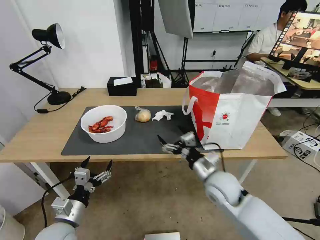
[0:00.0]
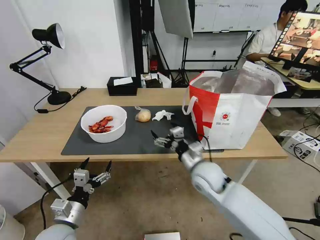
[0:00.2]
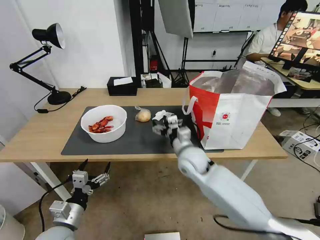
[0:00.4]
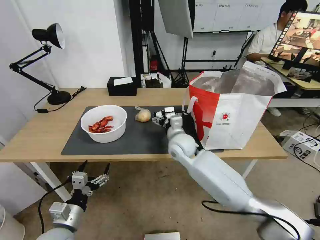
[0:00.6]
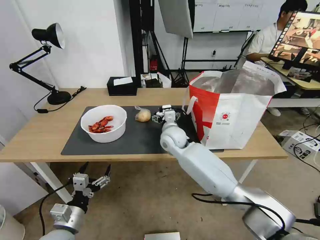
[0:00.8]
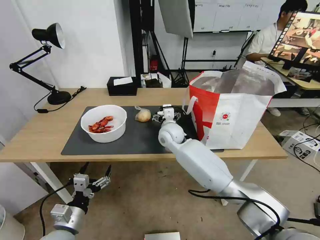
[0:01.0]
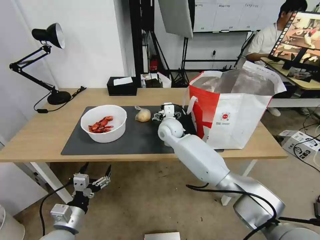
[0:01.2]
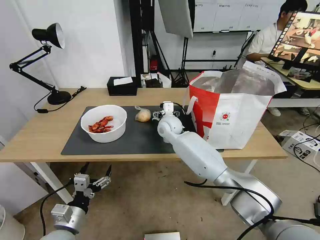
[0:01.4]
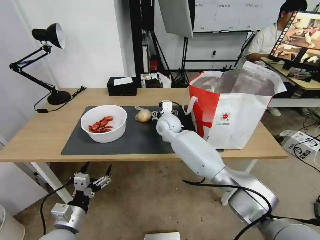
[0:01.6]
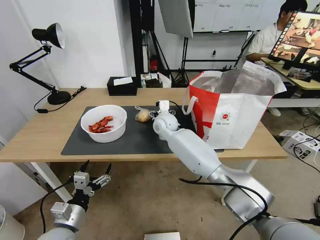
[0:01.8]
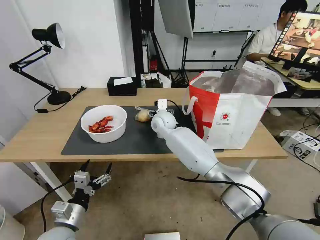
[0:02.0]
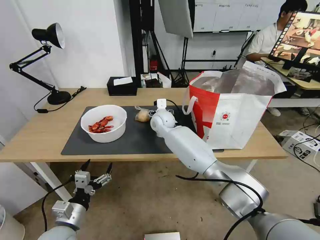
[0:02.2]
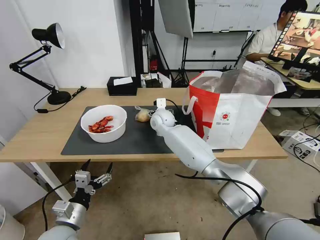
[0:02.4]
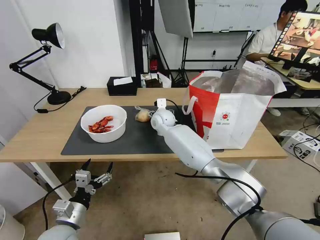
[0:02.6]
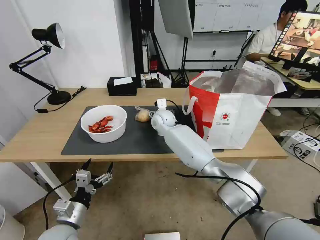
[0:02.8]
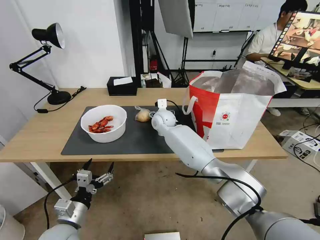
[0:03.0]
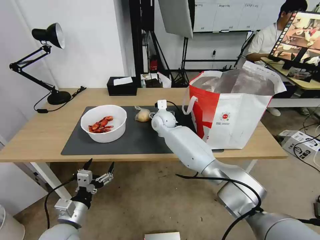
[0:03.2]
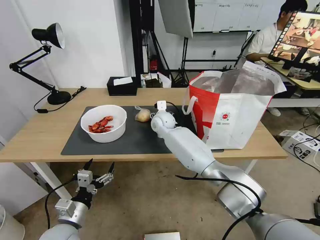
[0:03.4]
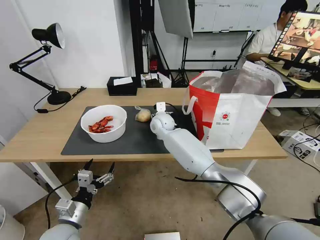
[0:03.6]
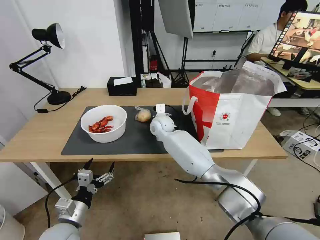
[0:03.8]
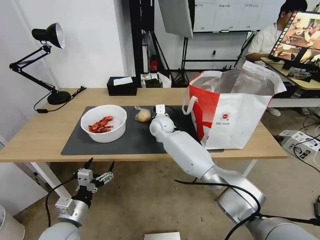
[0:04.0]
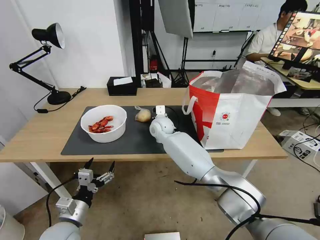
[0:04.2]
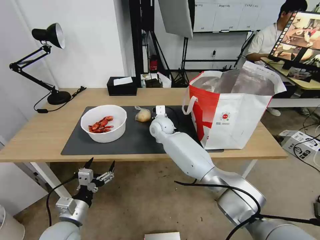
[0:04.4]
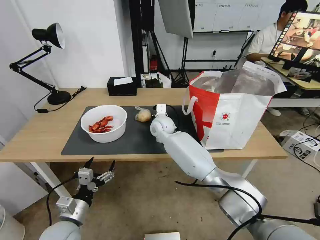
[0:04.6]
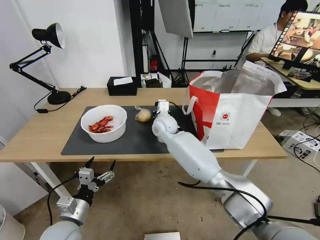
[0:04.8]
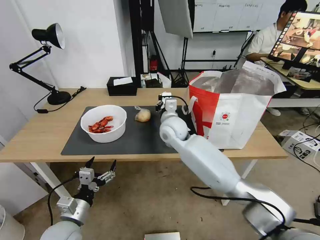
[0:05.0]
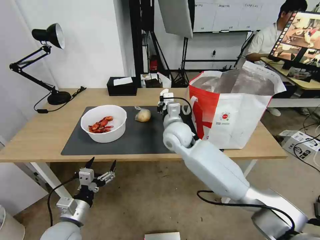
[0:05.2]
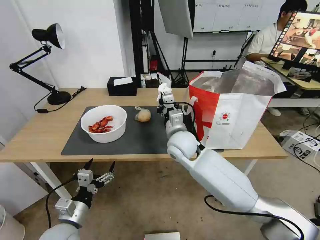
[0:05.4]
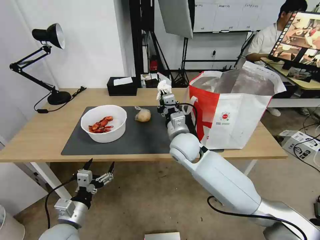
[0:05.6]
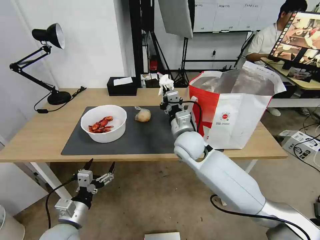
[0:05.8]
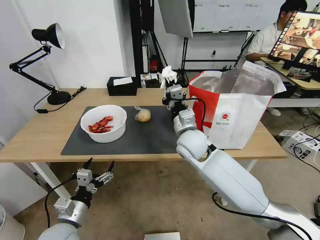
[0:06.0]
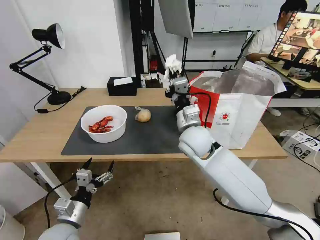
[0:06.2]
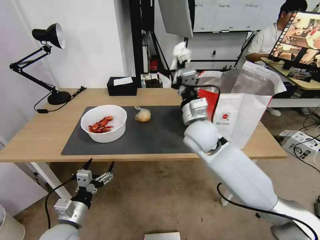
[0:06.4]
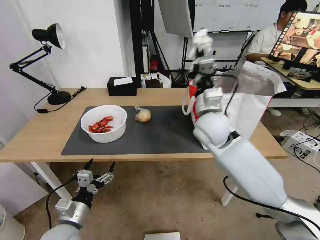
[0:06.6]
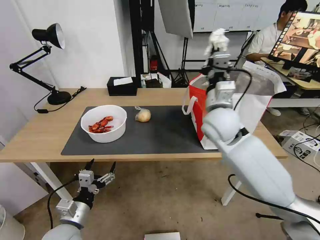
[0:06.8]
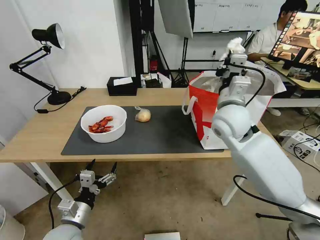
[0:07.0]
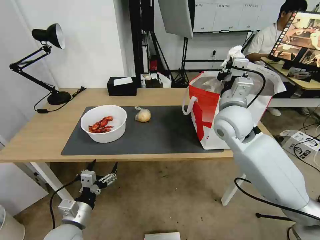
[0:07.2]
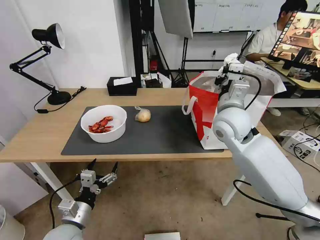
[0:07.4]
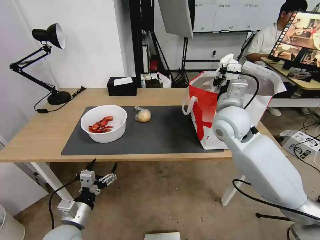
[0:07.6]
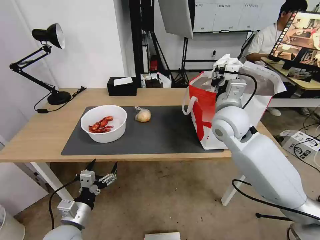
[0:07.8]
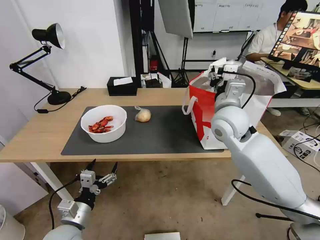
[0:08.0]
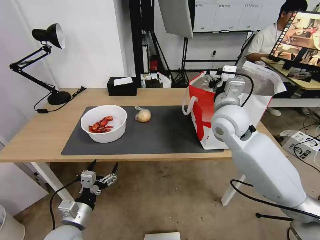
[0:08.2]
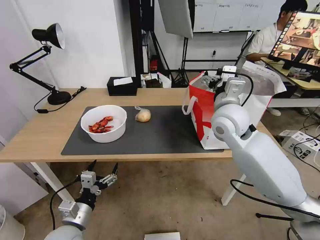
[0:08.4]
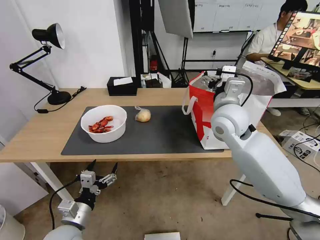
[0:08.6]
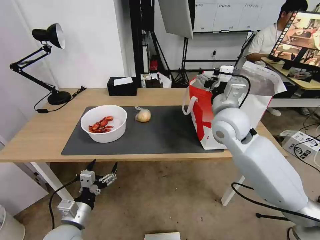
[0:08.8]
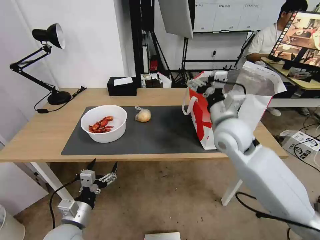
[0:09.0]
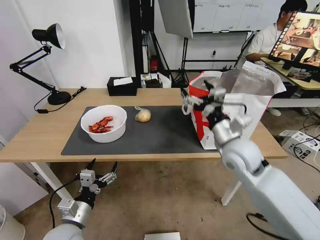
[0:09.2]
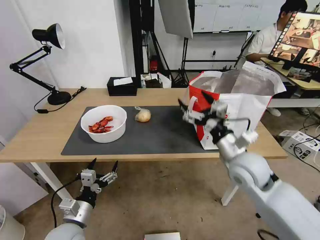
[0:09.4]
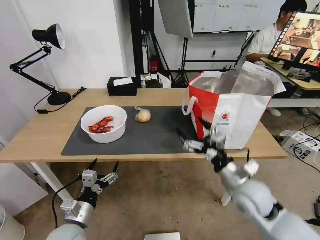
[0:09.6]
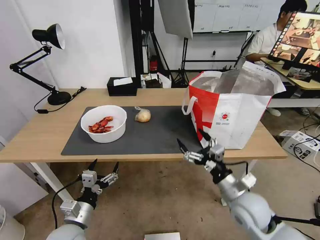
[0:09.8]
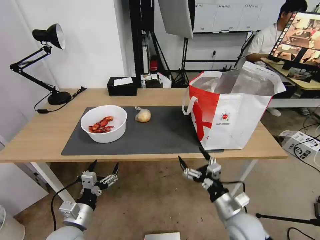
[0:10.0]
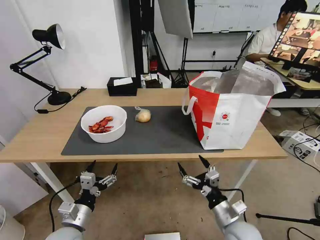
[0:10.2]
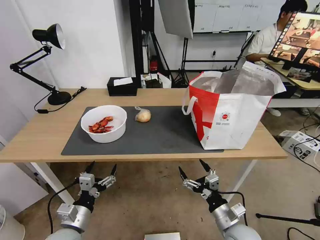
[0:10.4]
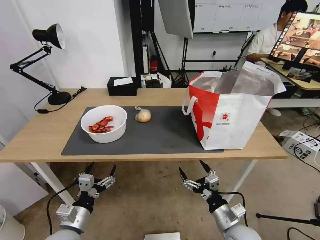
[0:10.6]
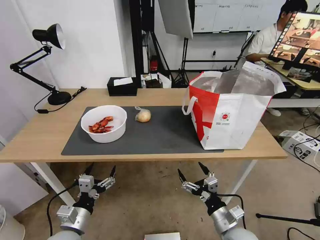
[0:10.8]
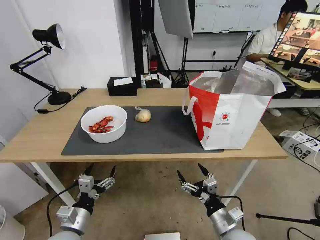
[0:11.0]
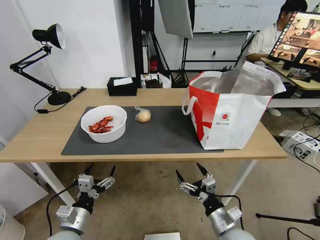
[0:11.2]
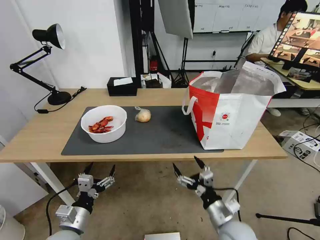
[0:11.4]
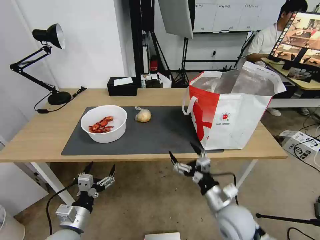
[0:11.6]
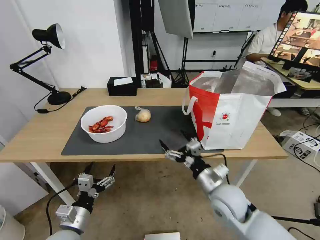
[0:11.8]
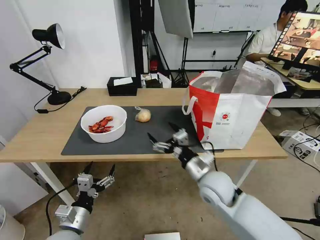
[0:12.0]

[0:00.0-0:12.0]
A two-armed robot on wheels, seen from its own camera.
Task of the whole recording: Pick up the trash from the table and place it into the takeout bag.
0:00.0 to 0:01.6: The right gripper goes about 30 cm forward and to the left.
0:01.6 to 0:03.0: The grippers stay close to where they were, moving slightly.
0:03.0 to 0:04.4: The right gripper closes.
0:04.4 to 0:06.0: The right gripper shifts about 20 cm backward, to the right and upward.
0:06.0 to 0:07.6: The right gripper moves to the right and upward, some 15 cm.
0:07.6 to 0:09.0: The right gripper opens.
0:09.0 to 0:10.4: The right gripper goes some 30 cm downward and backward.
0:10.4 to 0:12.0: The right gripper moves forward, upward and to the left, some 20 cm.

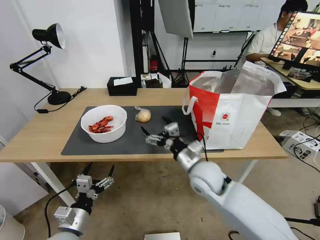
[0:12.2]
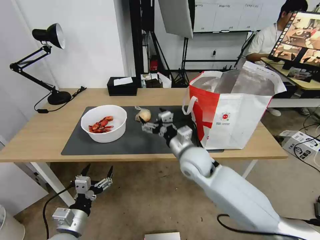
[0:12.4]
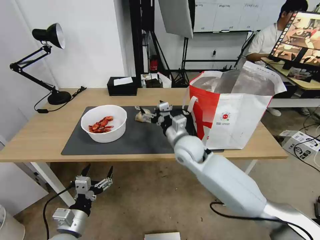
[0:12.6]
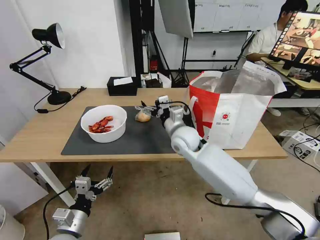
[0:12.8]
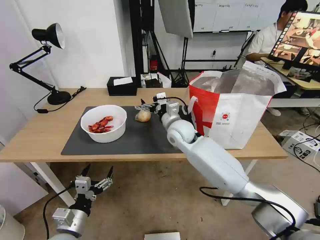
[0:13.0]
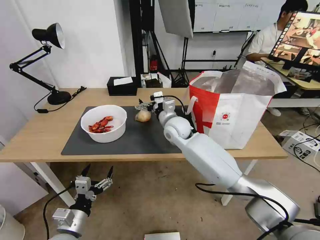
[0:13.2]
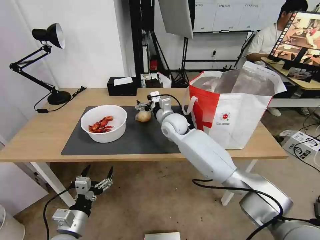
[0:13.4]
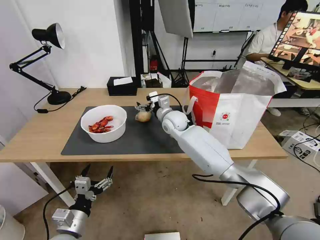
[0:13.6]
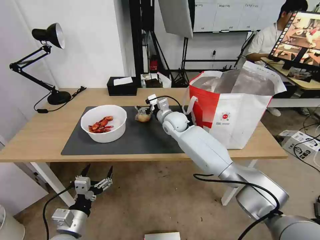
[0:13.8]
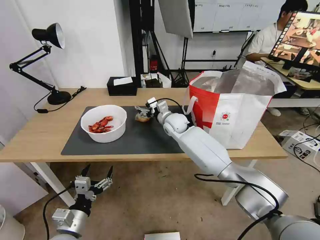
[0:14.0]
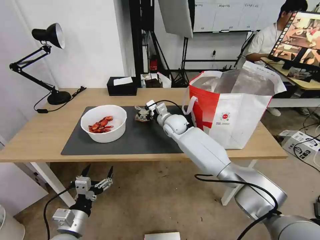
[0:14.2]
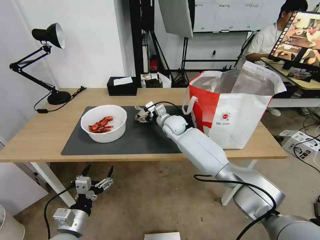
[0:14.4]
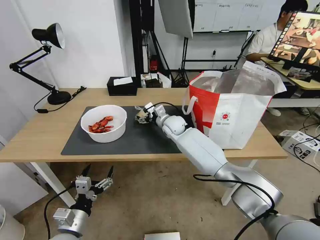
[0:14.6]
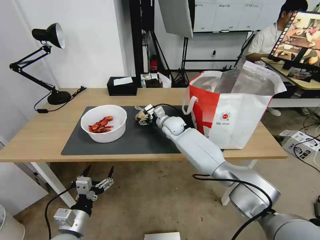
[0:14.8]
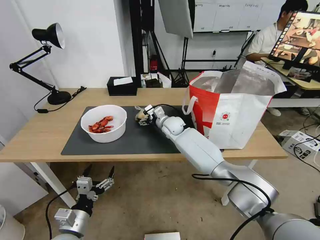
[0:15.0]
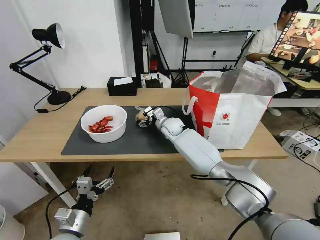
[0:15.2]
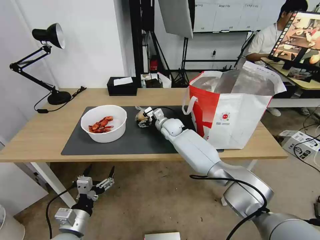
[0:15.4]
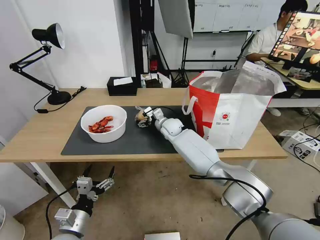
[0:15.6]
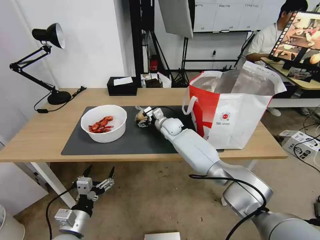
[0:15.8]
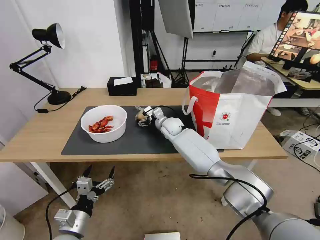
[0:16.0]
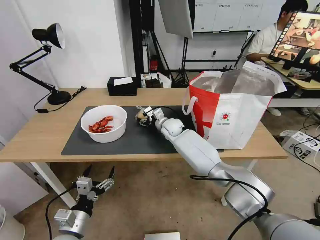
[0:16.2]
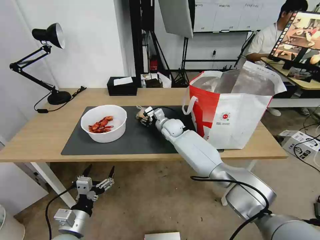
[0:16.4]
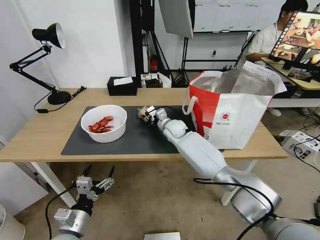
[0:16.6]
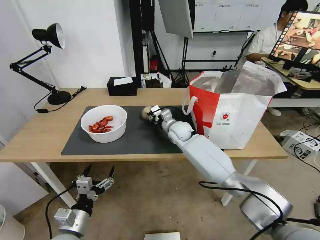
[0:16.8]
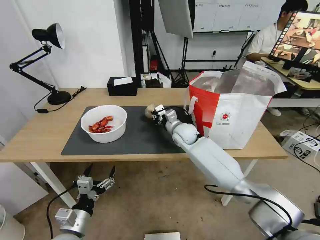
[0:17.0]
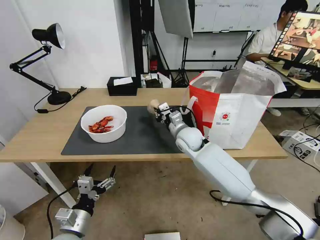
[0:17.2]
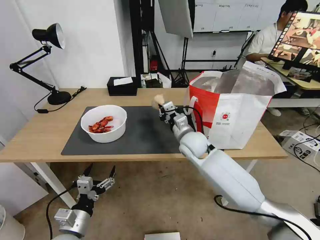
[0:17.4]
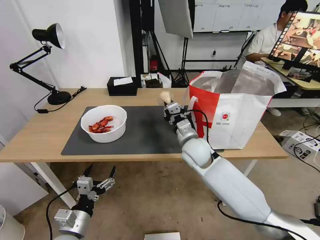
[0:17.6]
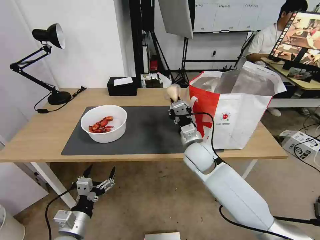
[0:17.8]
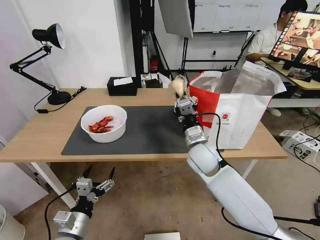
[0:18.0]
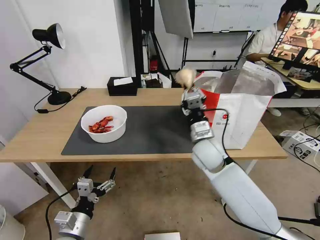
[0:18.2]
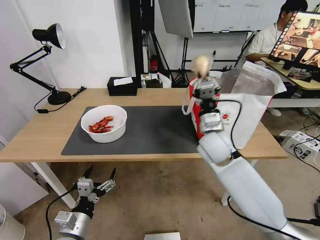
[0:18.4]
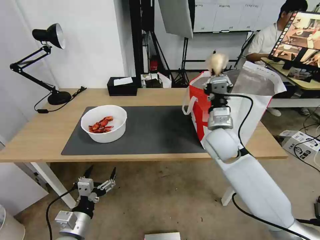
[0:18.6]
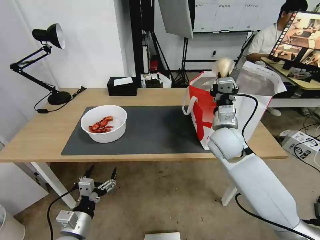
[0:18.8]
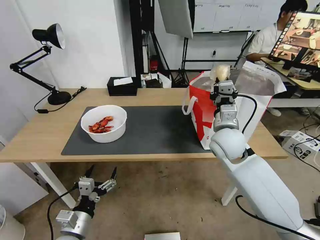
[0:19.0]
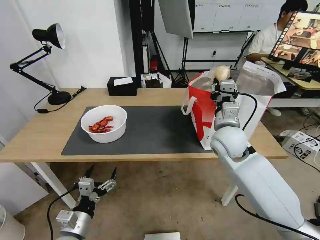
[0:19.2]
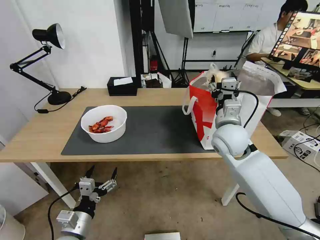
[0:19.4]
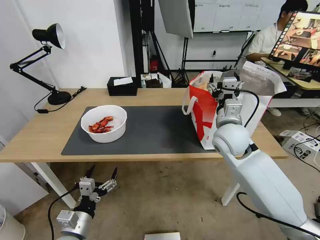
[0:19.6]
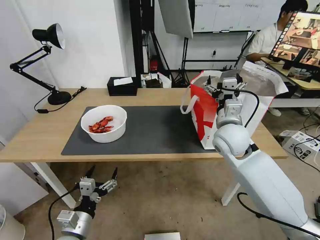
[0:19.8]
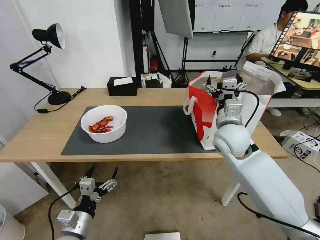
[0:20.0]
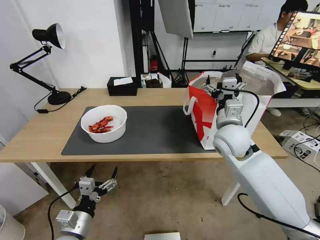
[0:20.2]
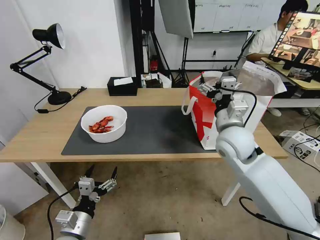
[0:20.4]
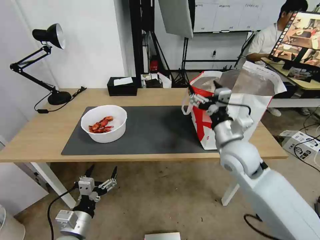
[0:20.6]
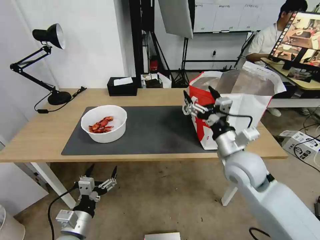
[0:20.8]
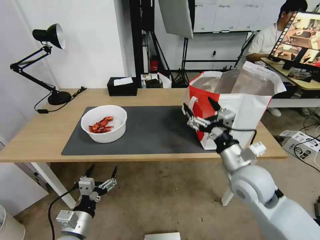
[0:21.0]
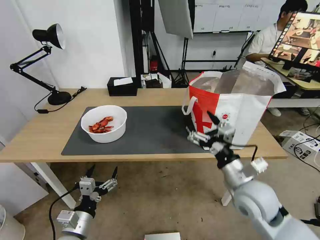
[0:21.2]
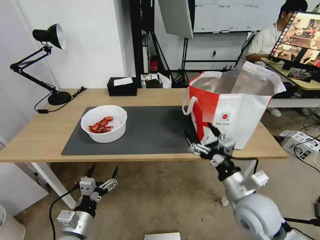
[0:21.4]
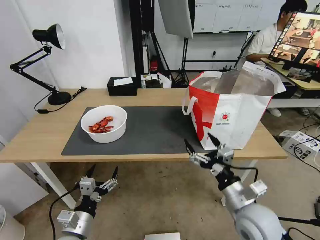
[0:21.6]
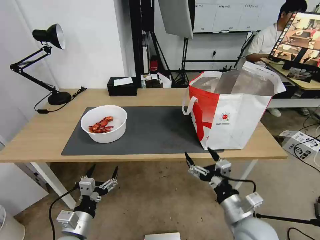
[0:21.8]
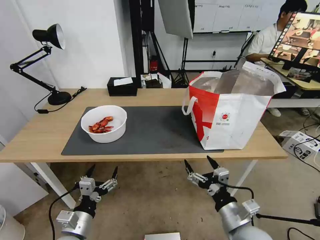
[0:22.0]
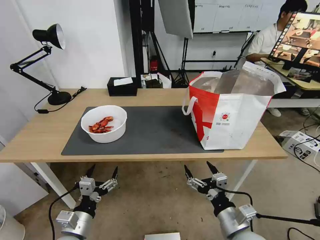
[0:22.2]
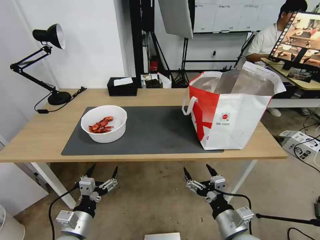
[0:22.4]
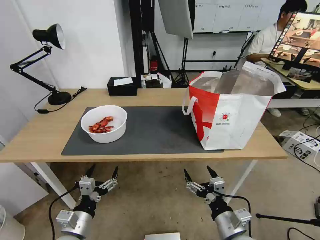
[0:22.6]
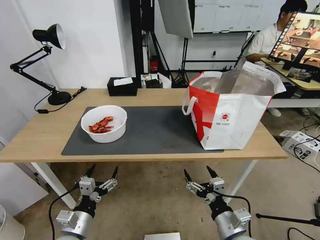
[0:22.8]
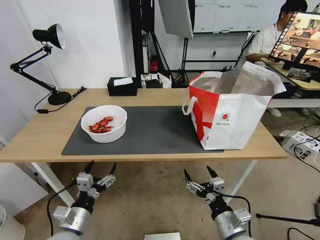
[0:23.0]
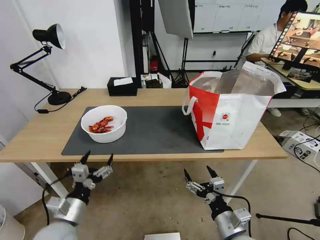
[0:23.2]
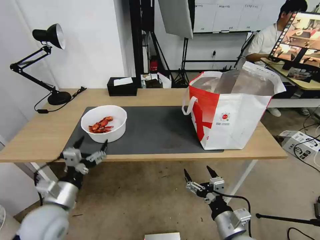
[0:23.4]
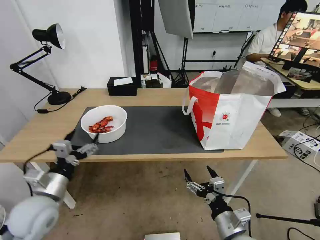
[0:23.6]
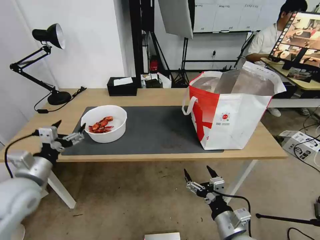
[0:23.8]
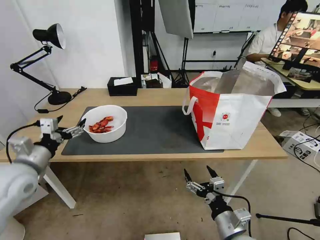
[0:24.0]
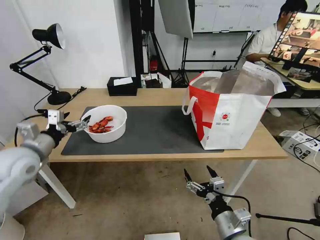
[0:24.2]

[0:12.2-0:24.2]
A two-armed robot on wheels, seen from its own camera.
Task of the whole recording: Pick up the trash from the table and place it into the takeout bag.
0:12.2 to 0:13.8: The right gripper is displaced forward by about 25 cm.
0:13.8 to 0:15.2: The right gripper heads downward, covering approximately 5 cm.
0:15.2 to 0:16.6: The right gripper closes its fingers.
0:16.6 to 0:18.2: The right gripper shifts some 20 cm backward, to the right and upward.
0:18.2 to 0:19.8: The right gripper heads upward and to the right, covering some 10 cm, and opens.
0:19.8 to 0:21.2: The right gripper moves backward and downward, approximately 15 cm.
0:21.2 to 0:22.6: The right gripper heads backward and downward, covering about 15 cm.
0:22.6 to 0:24.2: The left gripper travels forward, upward and to the left by approximately 30 cm.
